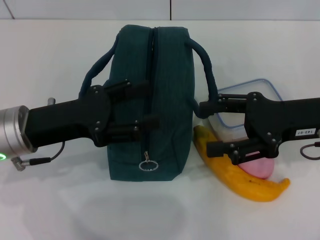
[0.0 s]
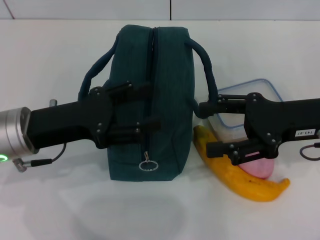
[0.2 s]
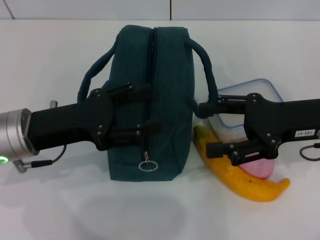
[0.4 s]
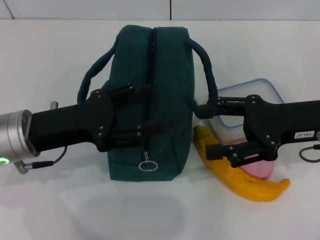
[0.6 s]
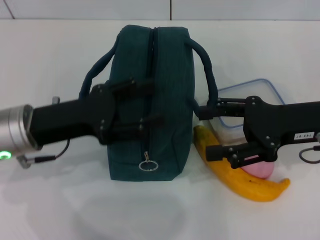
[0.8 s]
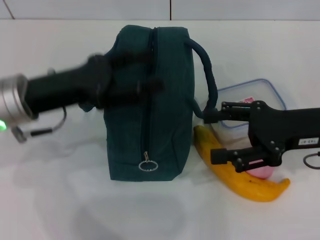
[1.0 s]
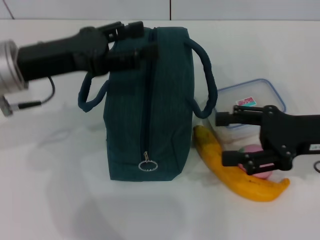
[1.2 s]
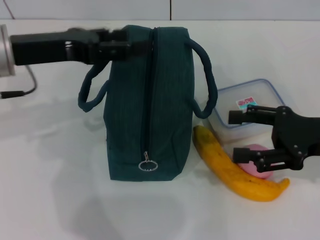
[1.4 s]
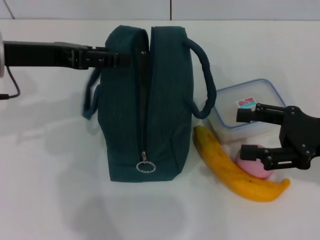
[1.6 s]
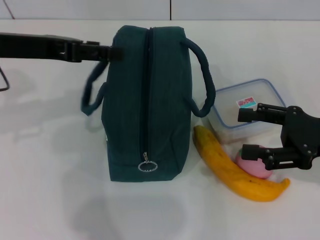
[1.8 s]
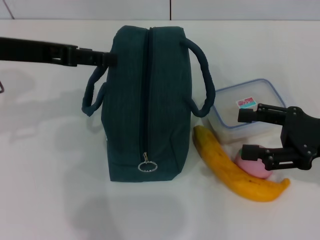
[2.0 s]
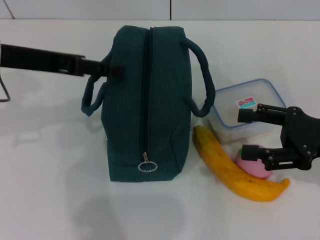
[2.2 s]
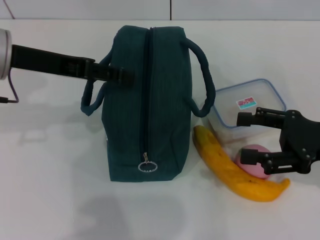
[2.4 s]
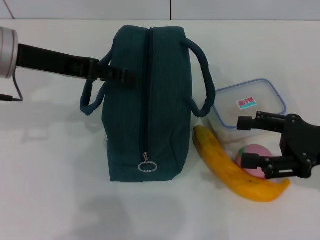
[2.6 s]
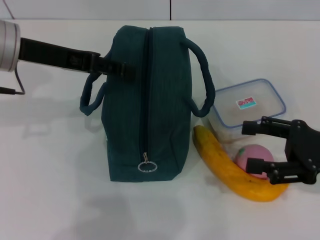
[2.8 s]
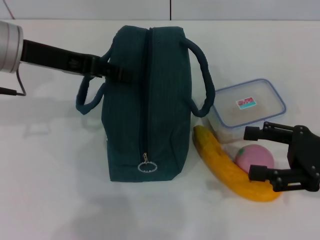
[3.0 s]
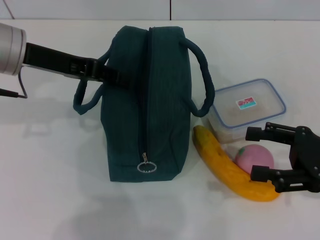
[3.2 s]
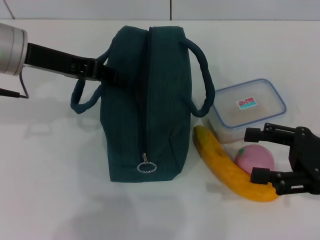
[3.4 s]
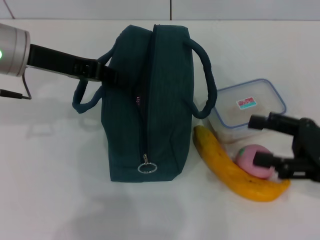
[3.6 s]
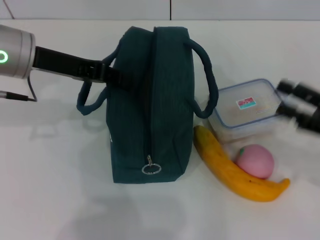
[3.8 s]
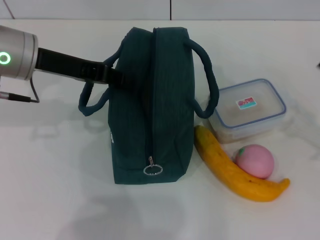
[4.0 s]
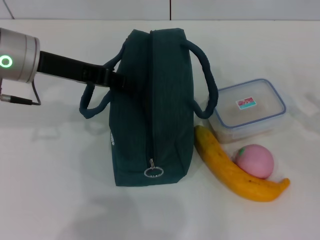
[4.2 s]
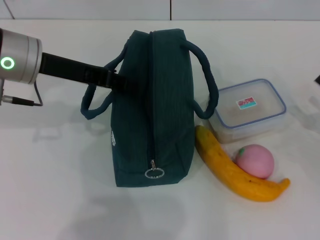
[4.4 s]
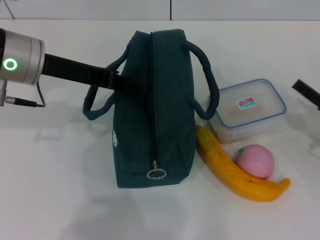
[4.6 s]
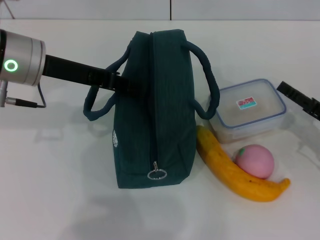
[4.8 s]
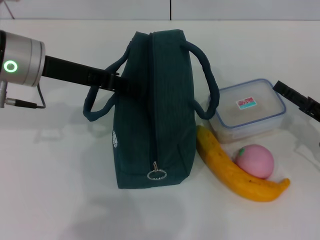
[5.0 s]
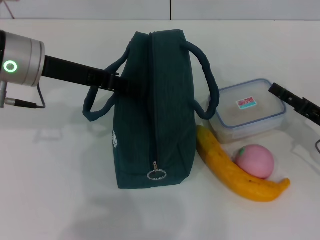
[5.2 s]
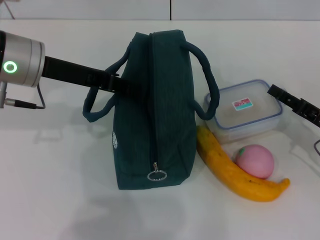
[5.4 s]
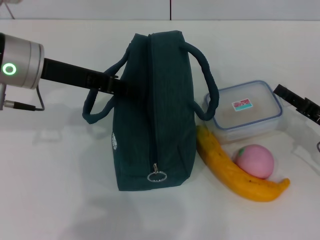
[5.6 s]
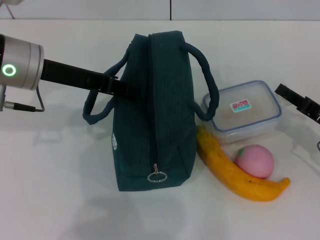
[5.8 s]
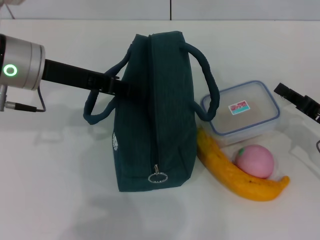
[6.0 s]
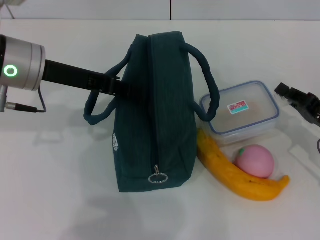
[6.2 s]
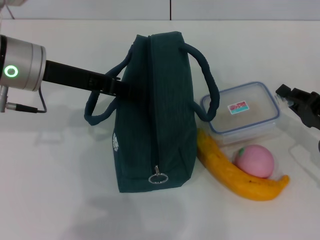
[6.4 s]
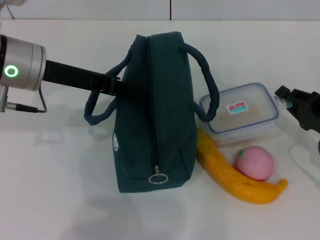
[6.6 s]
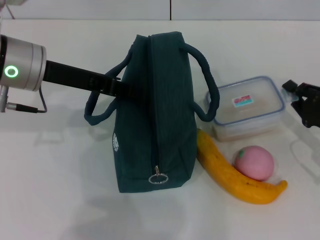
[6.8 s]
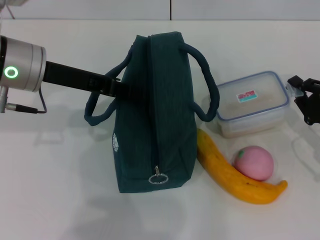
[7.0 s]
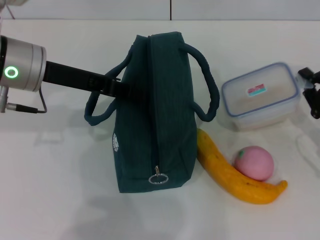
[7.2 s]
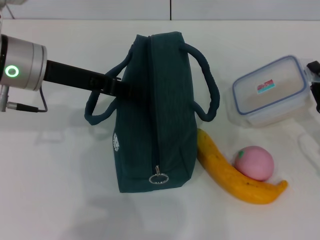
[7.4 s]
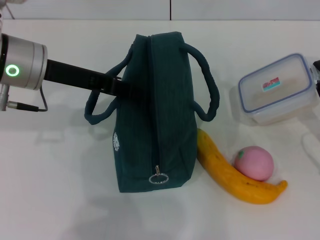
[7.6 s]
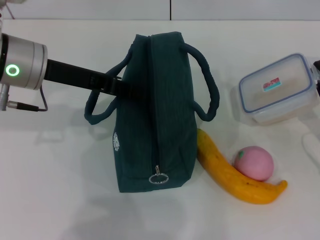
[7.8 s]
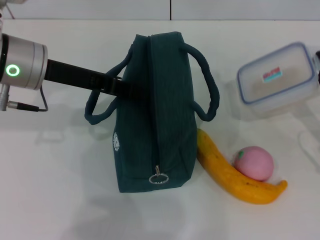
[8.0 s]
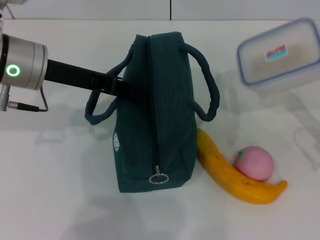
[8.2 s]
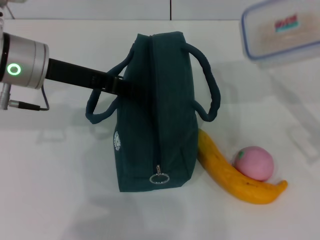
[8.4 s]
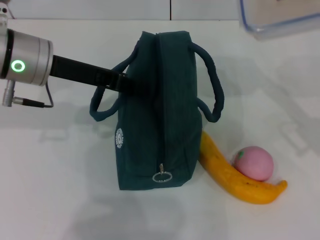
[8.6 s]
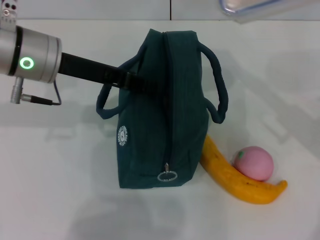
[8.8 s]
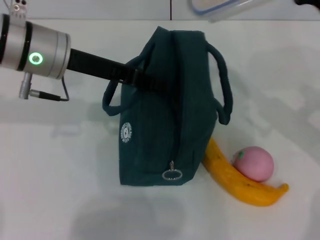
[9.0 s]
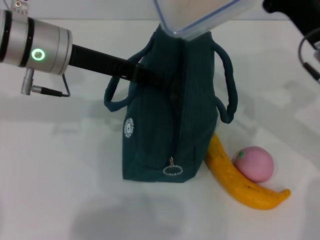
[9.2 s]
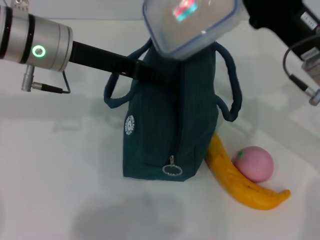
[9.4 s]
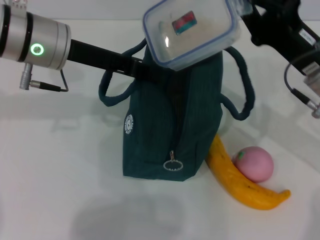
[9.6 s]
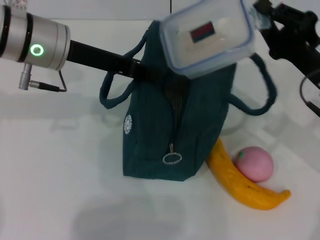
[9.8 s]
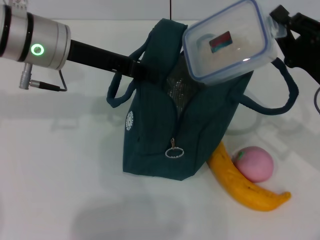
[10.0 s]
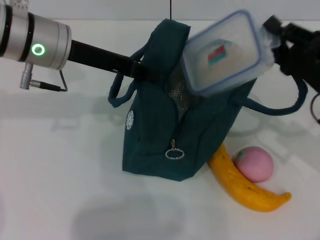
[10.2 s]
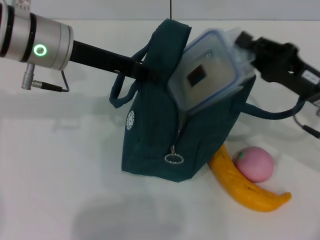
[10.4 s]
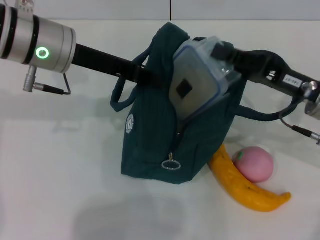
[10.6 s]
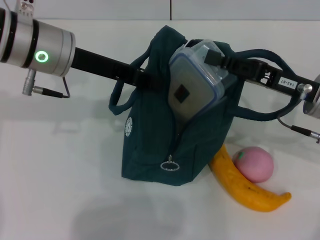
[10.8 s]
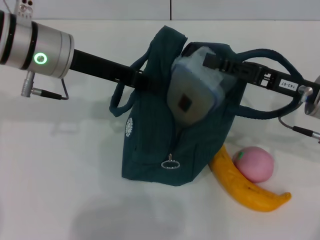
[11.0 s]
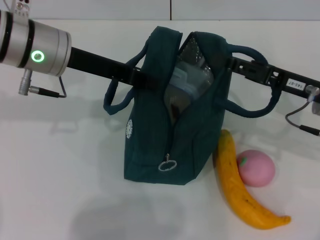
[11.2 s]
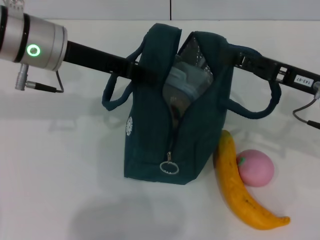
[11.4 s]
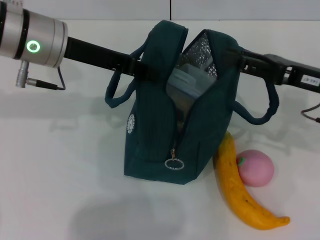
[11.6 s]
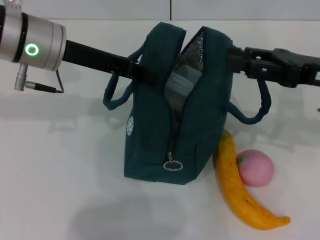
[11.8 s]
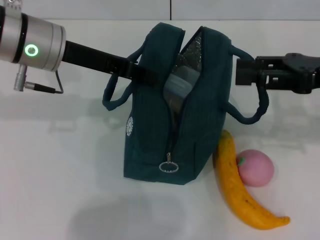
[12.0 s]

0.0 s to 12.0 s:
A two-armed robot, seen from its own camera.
Step, 0.0 to 3.8 s: Hold the lunch bag with your left hand.
Step, 4.0 to 6.2 s: Pick up the lunch box with your right hand.
Step, 6.4 to 11.8 s: Place the lunch box into the lunch bag with your right hand.
0.0 to 1.6 s: The left gripper travels upward and forward by about 10 cm, while the right gripper moves approximately 5 cm.
1.6 to 3.0 s: The grippers stay close to where they were, moving slightly.
3.0 to 4.4 s: The left gripper closes up; the right gripper is displaced downward and to the right by approximately 10 cm.
4.4 to 6.0 s: The right gripper moves some 5 cm, and closes.
7.6 to 9.0 s: The right gripper shifts some 15 cm upward, to the left and forward.
9.0 to 10.4 s: The right gripper shifts approximately 5 cm downward.
10.4 to 12.0 s: The right gripper goes roughly 10 cm upward, and opens.

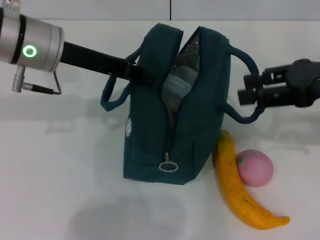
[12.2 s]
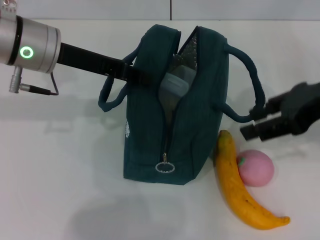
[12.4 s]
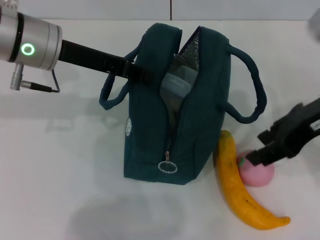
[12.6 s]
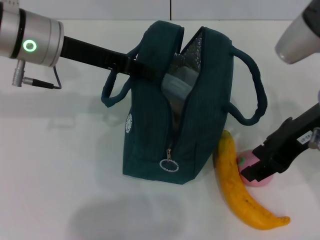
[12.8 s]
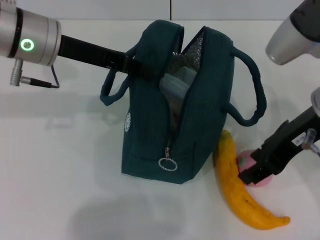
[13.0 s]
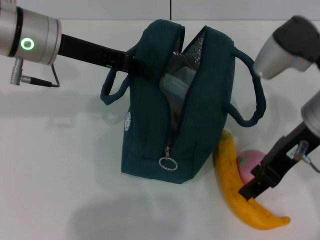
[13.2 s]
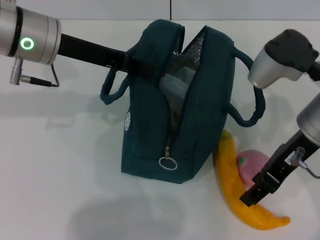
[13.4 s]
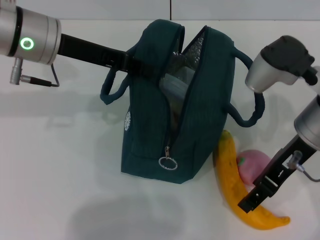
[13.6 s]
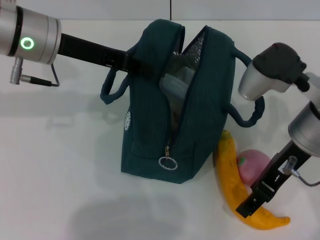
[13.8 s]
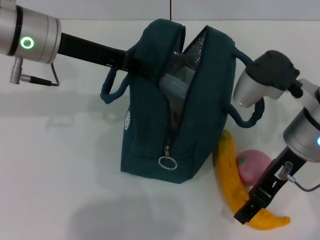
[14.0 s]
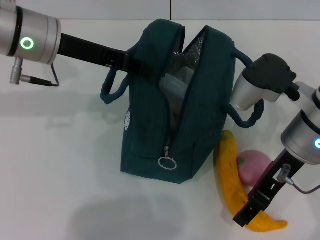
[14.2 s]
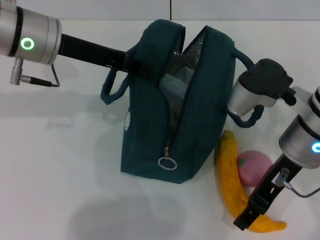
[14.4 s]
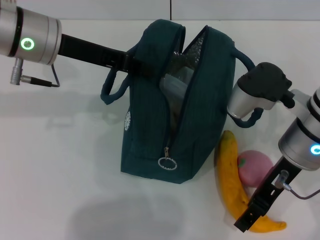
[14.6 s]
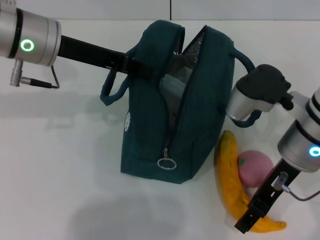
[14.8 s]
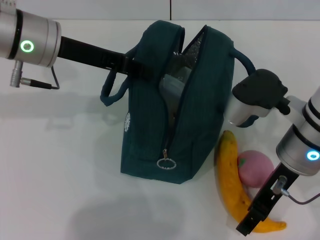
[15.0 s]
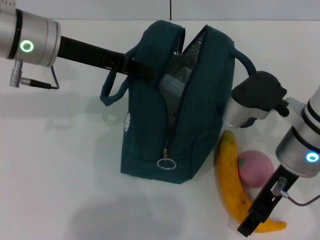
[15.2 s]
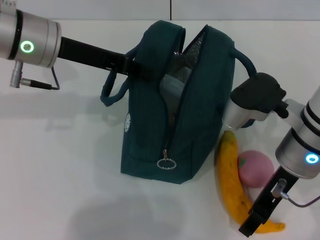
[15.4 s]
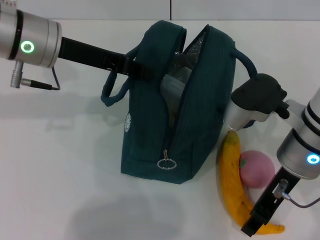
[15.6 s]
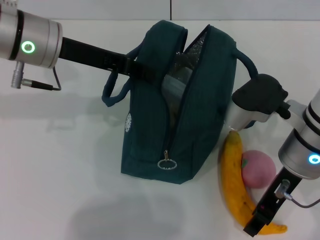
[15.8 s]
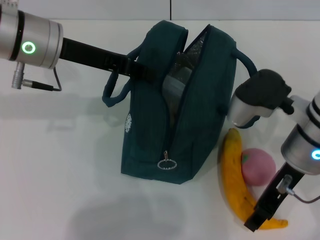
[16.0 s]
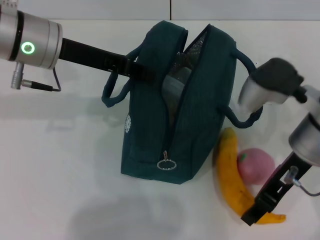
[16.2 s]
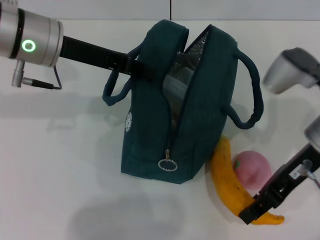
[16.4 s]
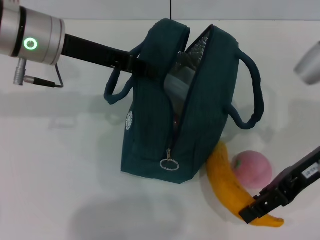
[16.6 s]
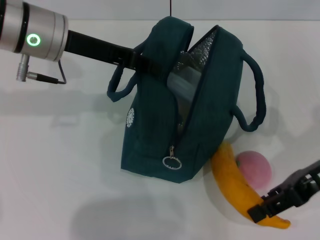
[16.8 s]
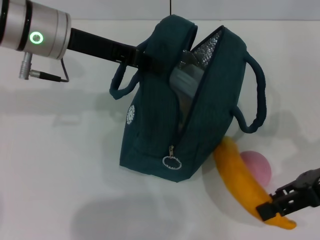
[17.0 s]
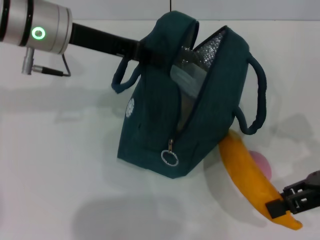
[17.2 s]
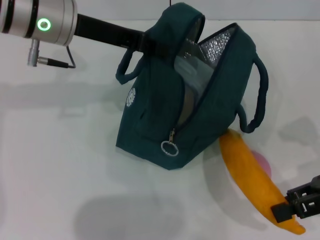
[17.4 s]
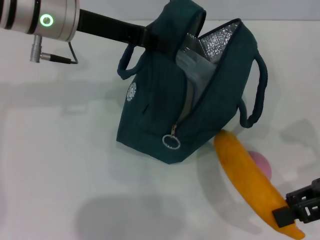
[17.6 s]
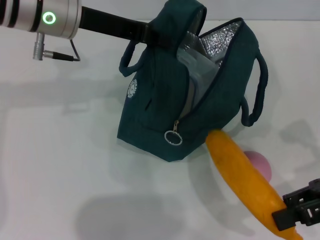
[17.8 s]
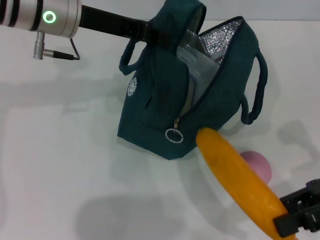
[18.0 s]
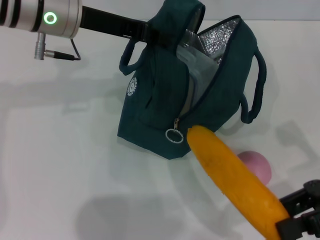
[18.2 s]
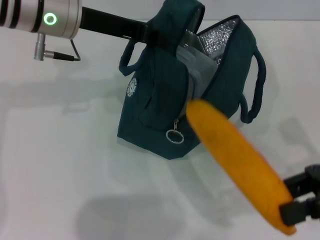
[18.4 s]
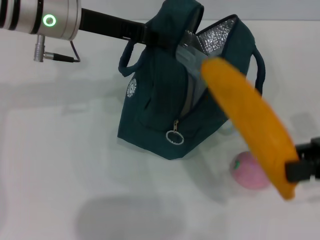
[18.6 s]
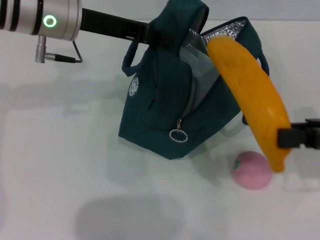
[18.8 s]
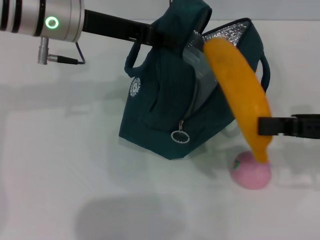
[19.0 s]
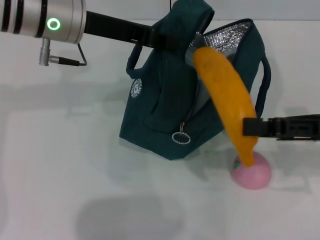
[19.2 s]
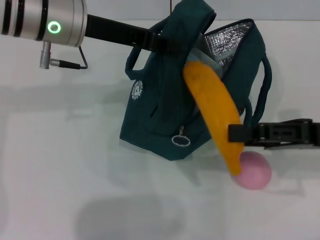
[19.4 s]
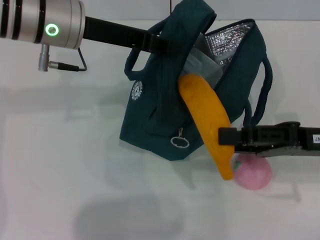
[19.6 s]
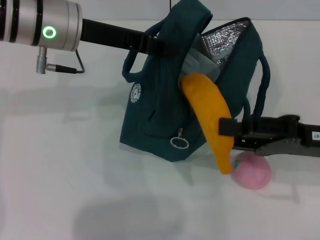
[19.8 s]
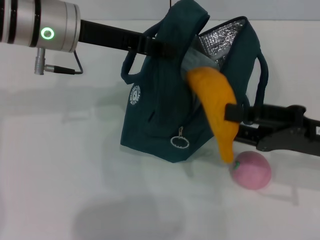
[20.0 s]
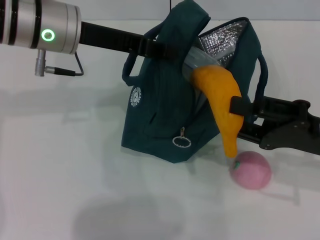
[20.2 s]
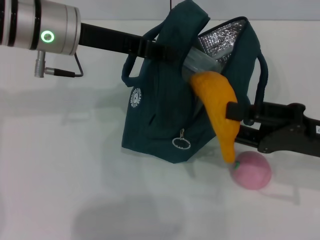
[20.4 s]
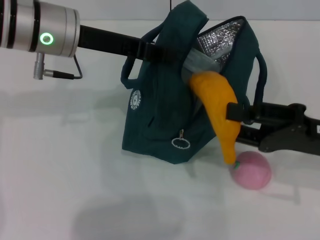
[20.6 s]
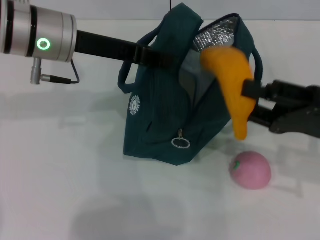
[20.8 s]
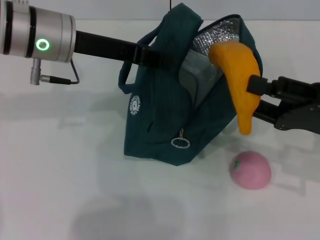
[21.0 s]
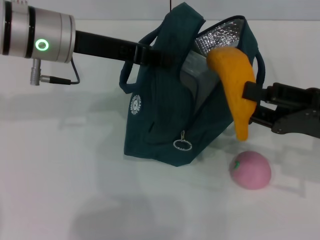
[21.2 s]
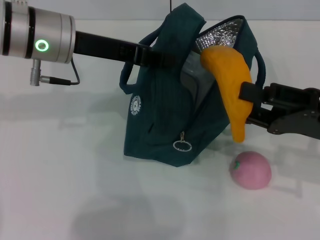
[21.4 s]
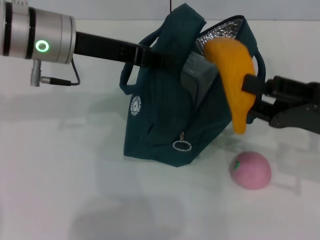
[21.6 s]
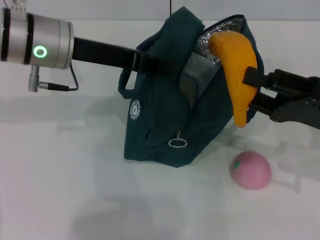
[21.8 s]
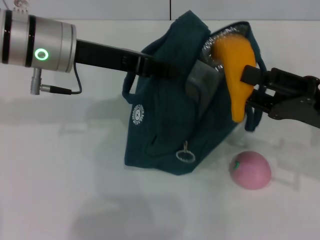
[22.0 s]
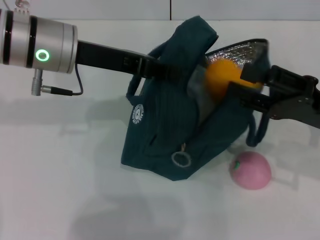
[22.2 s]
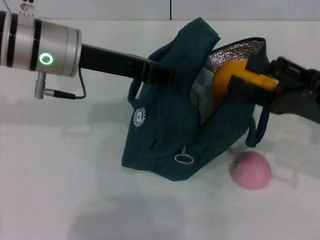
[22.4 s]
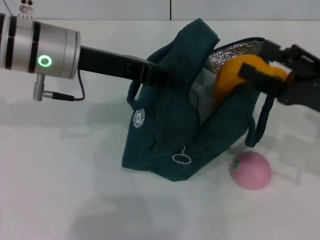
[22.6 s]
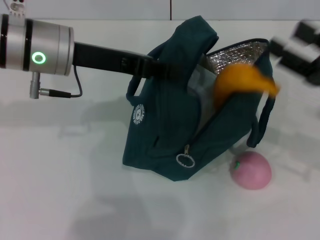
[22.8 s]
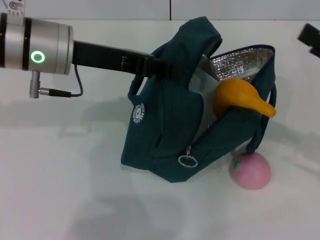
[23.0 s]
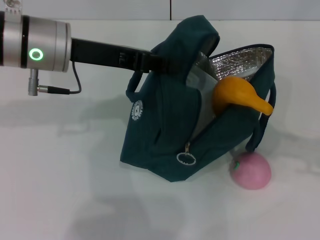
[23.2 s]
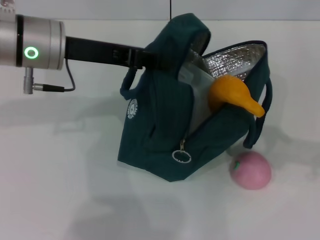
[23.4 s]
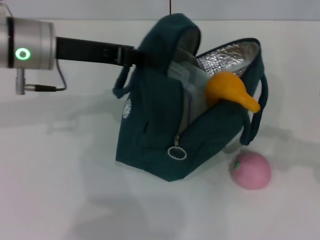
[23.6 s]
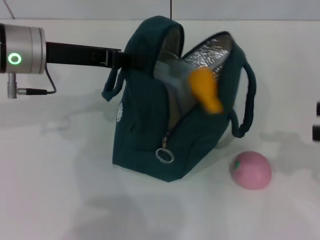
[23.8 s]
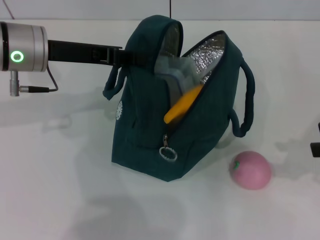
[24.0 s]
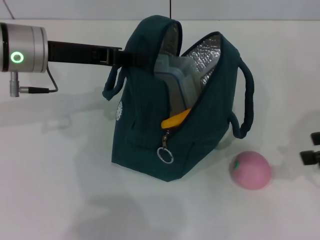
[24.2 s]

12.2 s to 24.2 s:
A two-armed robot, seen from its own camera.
Step, 12.2 to 15.4 s: Take the banana with your right hand.
Step, 15.6 to 22.6 s: Put the banana into the lunch bag with your right hand.
12.2 to 13.8 s: The right gripper moves to the left and downward, some 10 cm.
13.8 to 15.2 s: There are only small adjustments of the grippers.
15.2 to 16.6 s: The right gripper is displaced to the right by approximately 5 cm.
16.6 to 18.2 s: The right gripper goes roughly 5 cm to the right.
18.2 to 19.8 s: The right gripper changes place by roughly 5 cm.
22.6 to 24.2 s: The right gripper moves upward and to the right, approximately 10 cm.
